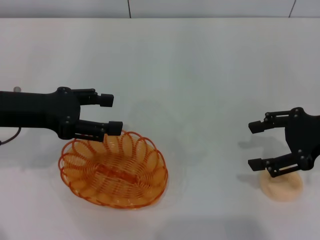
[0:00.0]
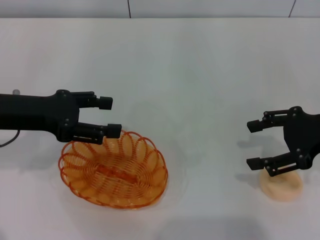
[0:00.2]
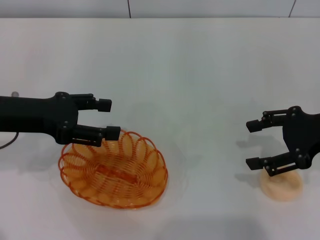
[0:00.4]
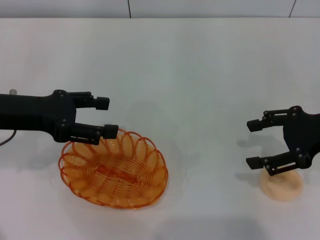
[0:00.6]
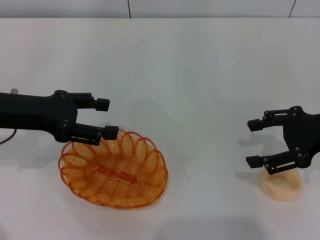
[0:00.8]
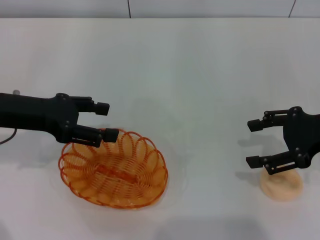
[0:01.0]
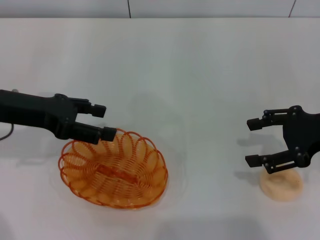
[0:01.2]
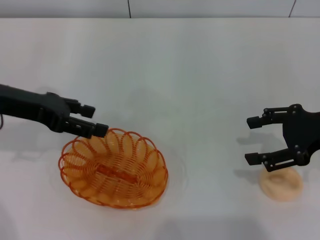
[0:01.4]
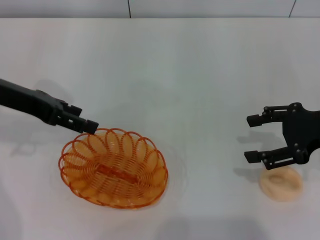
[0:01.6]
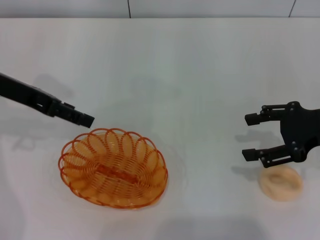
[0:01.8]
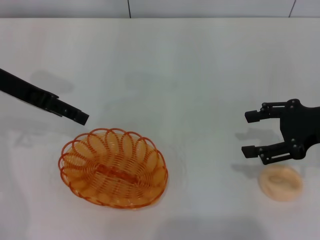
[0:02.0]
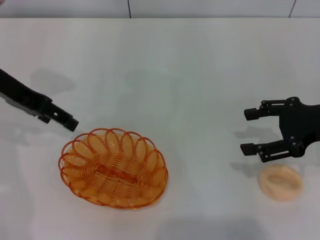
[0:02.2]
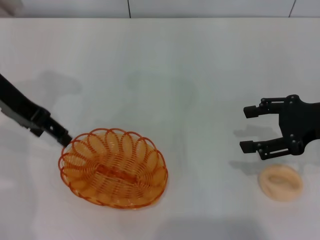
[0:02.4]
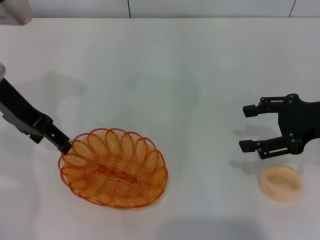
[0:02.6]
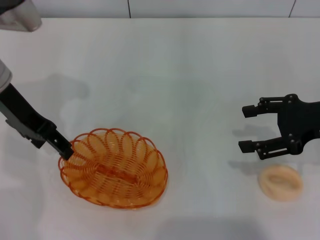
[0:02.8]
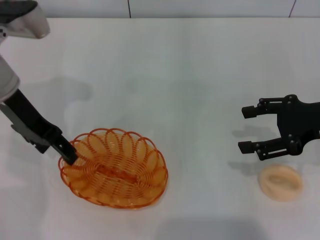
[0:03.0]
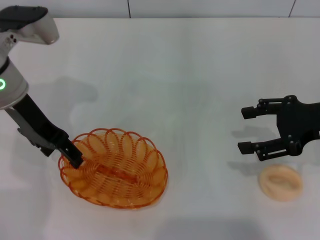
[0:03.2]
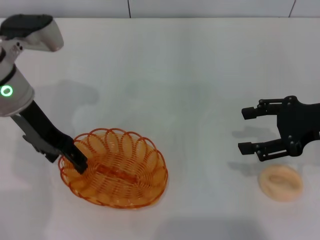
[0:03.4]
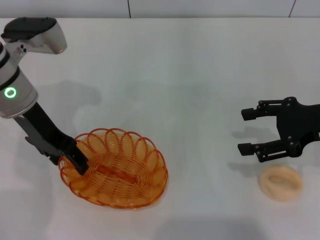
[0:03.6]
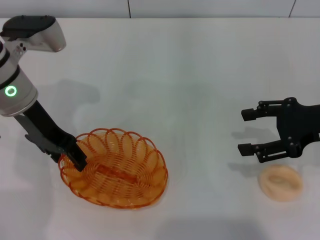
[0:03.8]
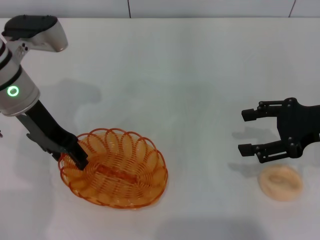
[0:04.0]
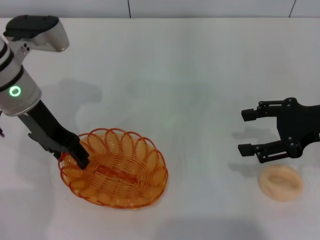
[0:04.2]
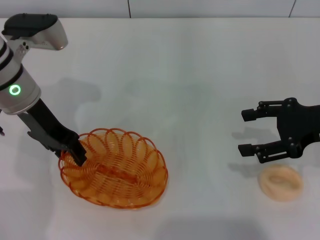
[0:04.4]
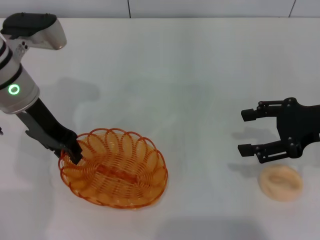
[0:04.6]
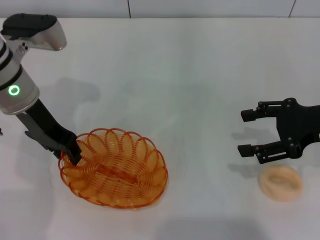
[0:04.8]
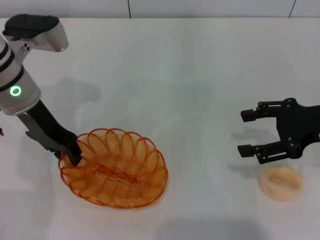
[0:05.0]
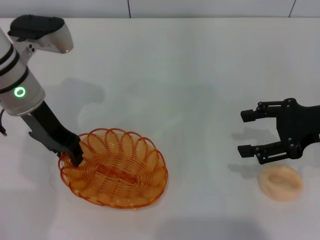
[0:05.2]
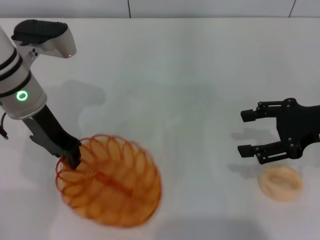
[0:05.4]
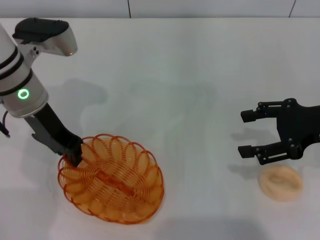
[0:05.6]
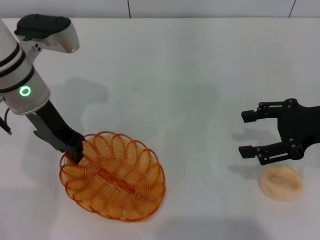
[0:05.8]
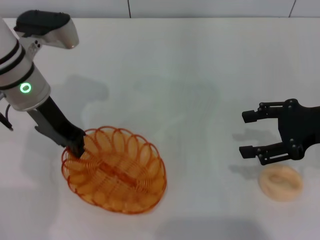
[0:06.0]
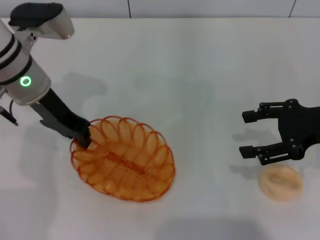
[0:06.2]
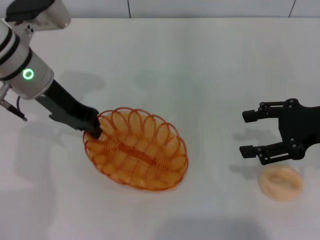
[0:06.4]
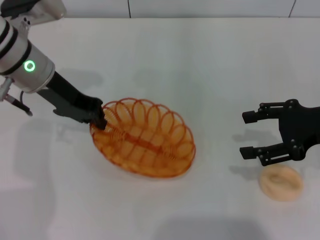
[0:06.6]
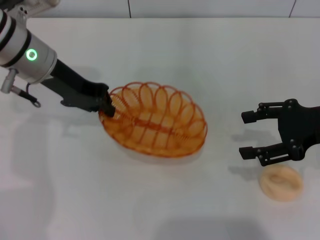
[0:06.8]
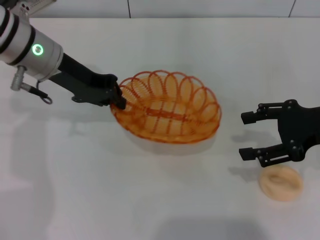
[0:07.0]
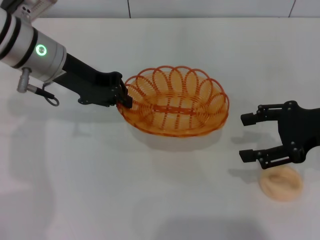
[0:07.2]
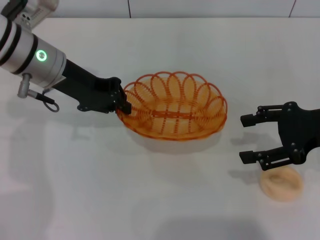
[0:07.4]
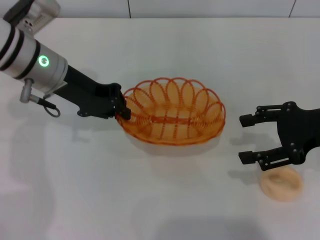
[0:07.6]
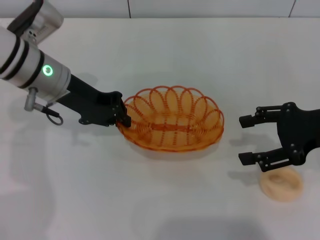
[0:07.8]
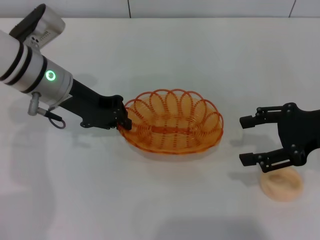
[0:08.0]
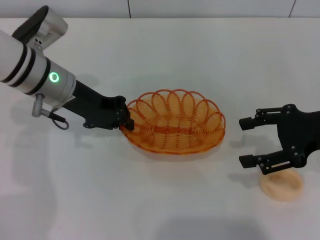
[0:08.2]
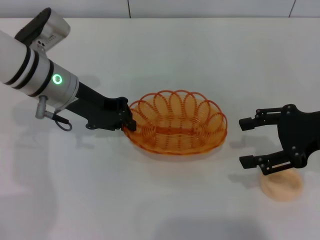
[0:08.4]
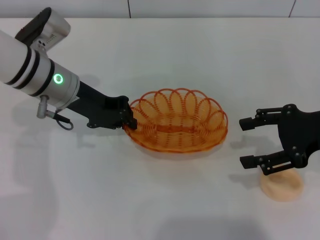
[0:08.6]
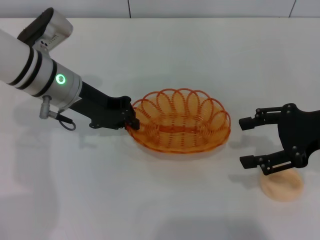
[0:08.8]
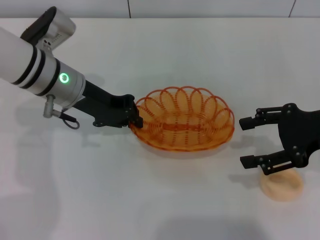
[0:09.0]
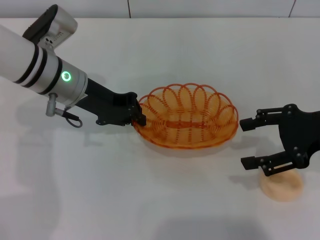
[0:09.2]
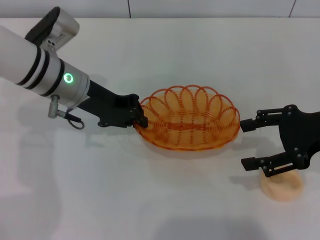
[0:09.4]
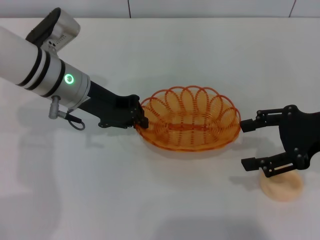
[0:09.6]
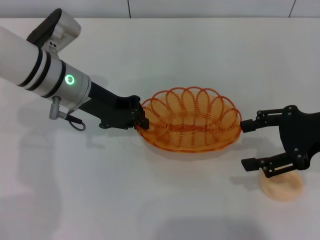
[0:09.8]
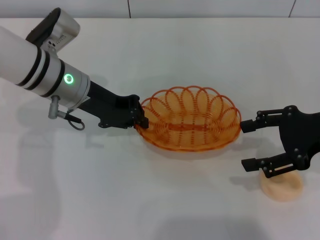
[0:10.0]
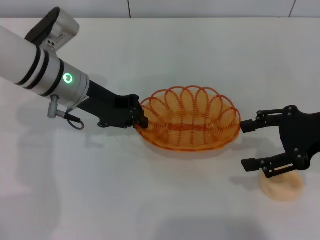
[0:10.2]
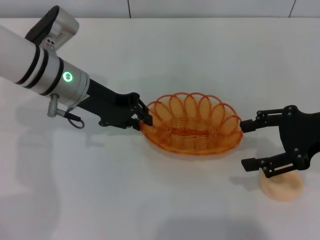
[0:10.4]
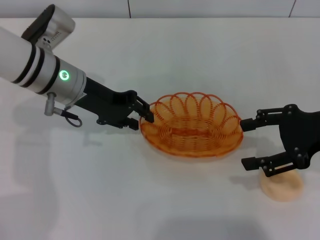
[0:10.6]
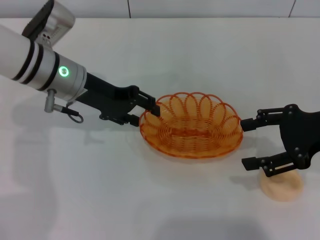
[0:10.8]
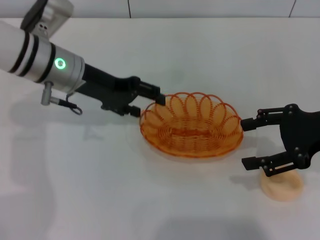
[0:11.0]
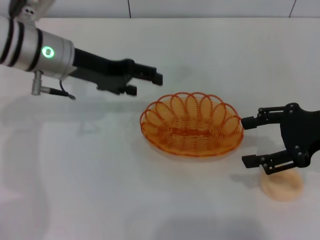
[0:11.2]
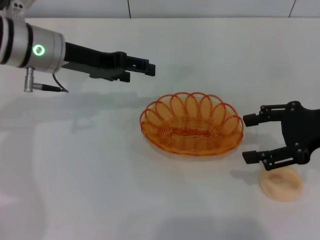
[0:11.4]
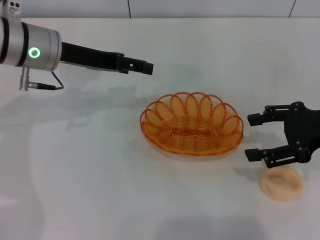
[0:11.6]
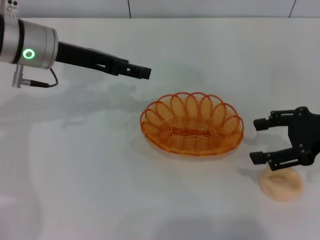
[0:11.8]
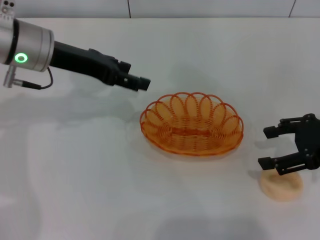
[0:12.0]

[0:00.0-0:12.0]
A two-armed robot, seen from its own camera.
Step, 0:00.0 to 0:06.2: Pick up the basket with the left gripper.
Step, 0:06.6 to 0:11.2: Place the basket in the center of view with the left gripper.
0:01.6 to 0:03.0: The left gripper changes place by approximately 5 cm.
0:03.0 to 0:04.4: There are only small adjustments of the grippers.
0:04.4 to 0:06.0: The left gripper closes.
0:07.6 to 0:09.0: The grippers move only a little.
0:09.0 to 0:10.4: Both grippers stay put.
0:10.4 to 0:12.0: The left gripper heads upward, covering approximately 5 cm, and opens its fingers.

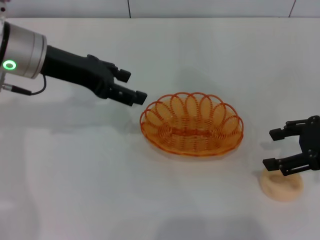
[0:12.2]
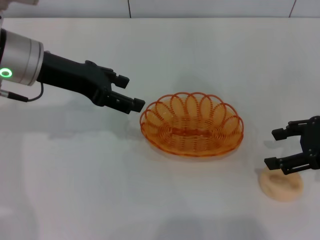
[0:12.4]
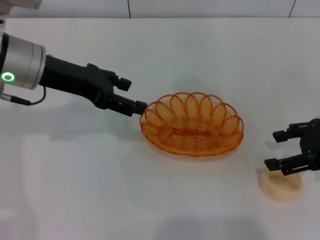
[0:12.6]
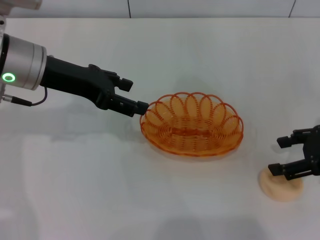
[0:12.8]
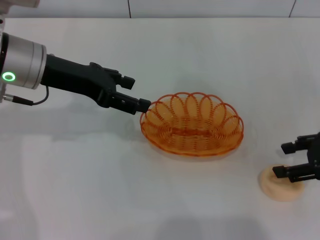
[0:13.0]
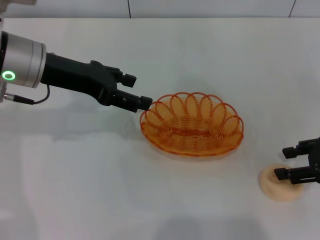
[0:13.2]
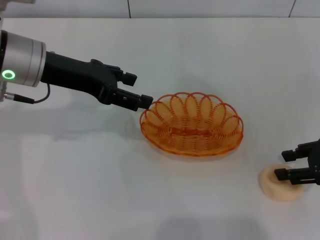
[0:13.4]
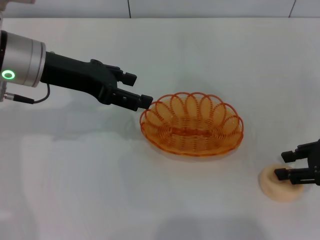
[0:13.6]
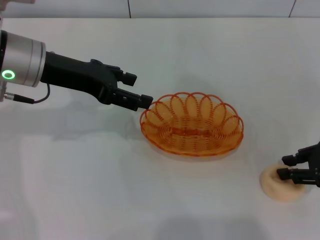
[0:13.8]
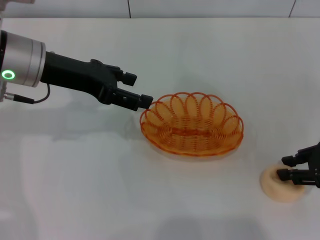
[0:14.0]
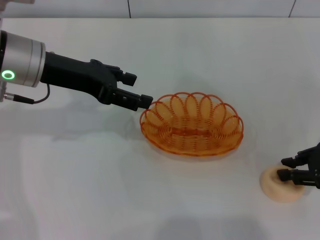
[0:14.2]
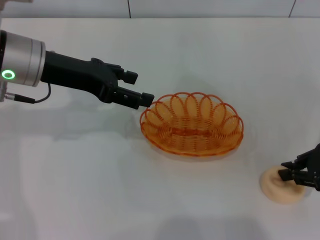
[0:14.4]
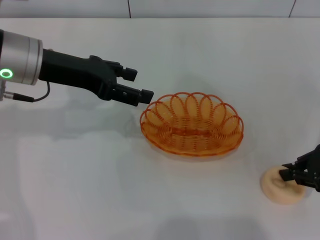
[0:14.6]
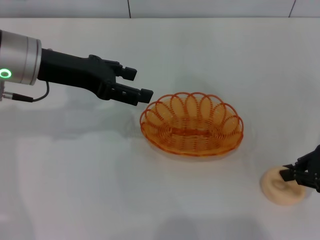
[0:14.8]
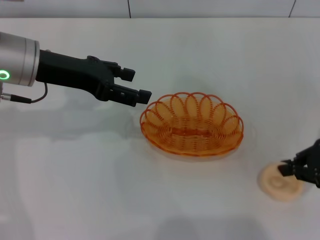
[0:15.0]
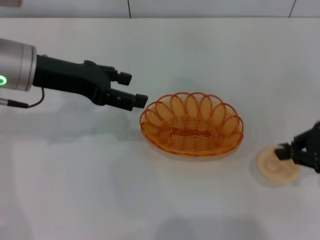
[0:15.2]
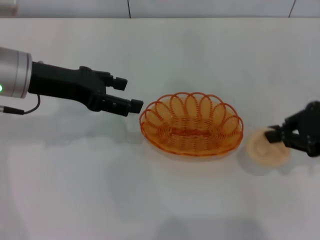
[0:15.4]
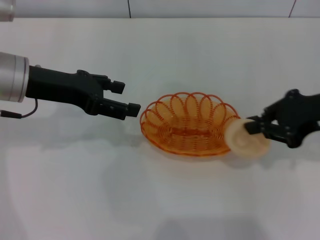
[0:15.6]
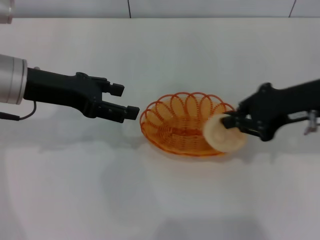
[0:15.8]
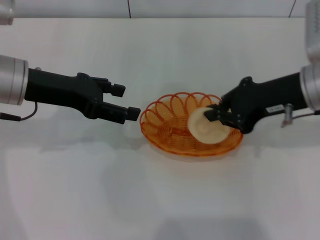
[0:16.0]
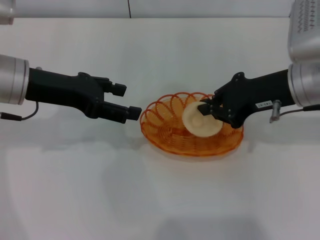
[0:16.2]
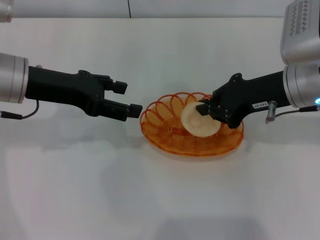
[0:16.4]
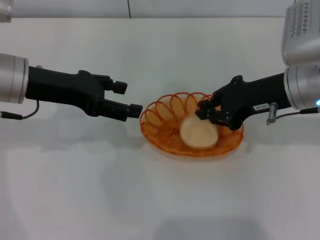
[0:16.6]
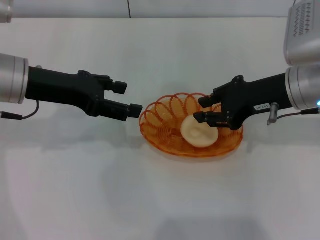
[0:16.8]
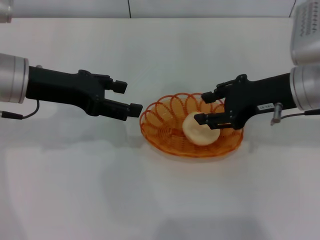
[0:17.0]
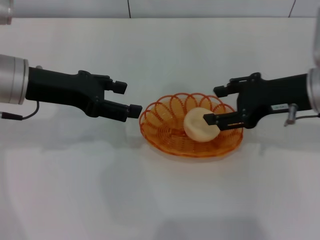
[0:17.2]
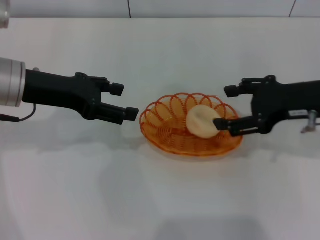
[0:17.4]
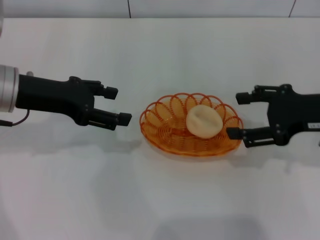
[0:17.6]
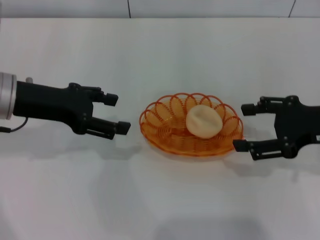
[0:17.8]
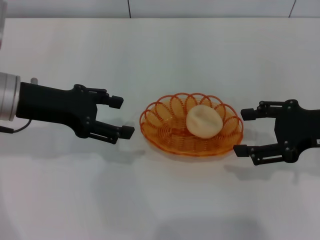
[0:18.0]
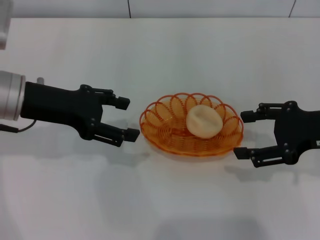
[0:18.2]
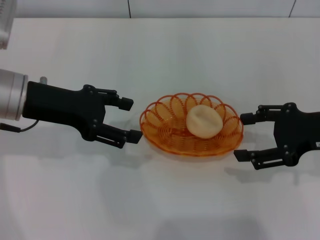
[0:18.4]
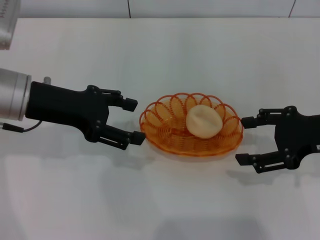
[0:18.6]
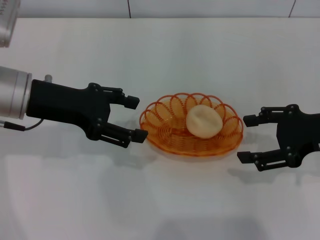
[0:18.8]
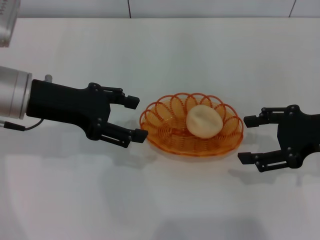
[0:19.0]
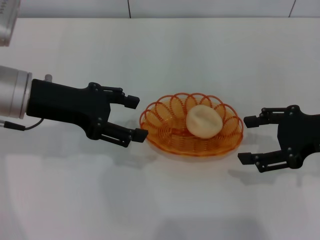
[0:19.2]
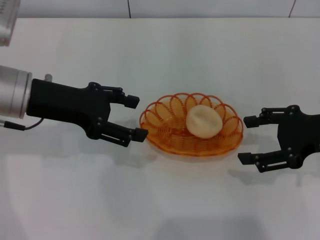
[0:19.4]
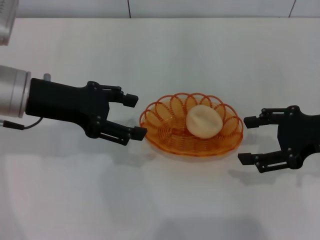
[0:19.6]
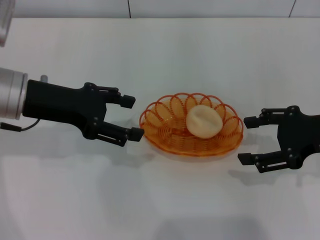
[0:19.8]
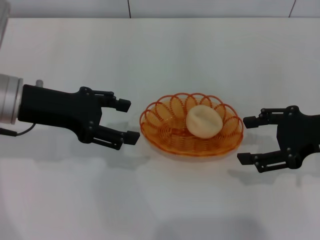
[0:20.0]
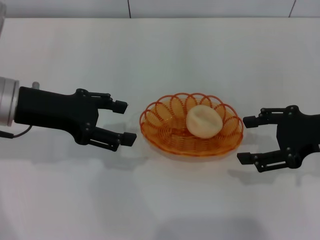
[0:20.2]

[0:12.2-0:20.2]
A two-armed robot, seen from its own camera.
Step, 0:12.2 to 0:15.2: Pick up the egg yolk pastry with the right gripper.
Step, 0:15.4 to 0:17.4: Place the egg yolk pastry into the basket with the right gripper.
0:12.2 to 0:13.8: The right gripper closes up.
0:13.8 to 0:15.4: The right gripper shifts about 5 cm upward, and closes.
0:15.4 to 0:17.0: The right gripper heads to the left, covering roughly 10 cm, and opens up.
0:17.0 to 0:18.6: The right gripper moves to the right and backward, about 10 cm, and opens.
0:18.6 to 0:20.2: The grippers make only small movements.

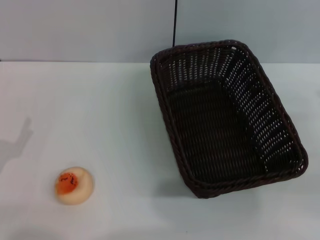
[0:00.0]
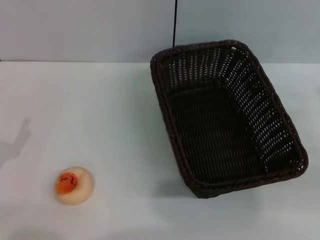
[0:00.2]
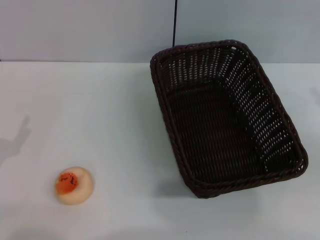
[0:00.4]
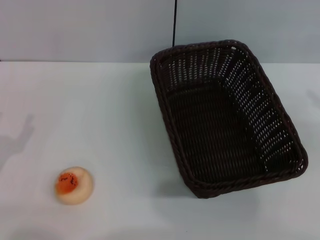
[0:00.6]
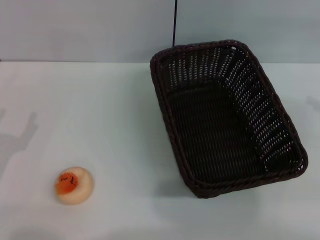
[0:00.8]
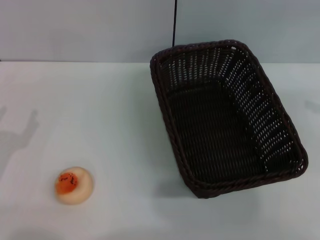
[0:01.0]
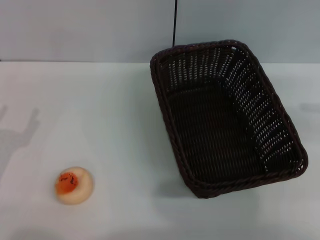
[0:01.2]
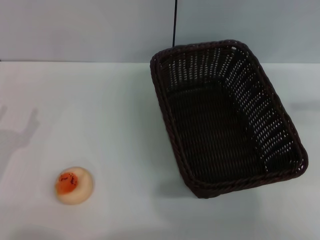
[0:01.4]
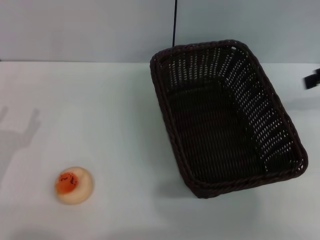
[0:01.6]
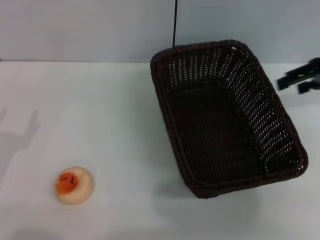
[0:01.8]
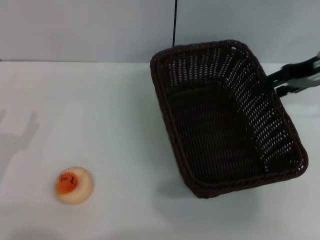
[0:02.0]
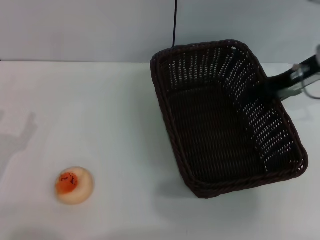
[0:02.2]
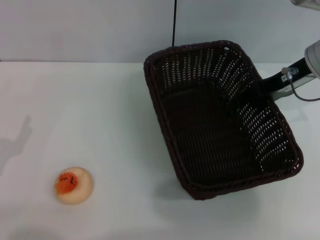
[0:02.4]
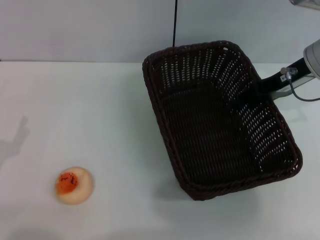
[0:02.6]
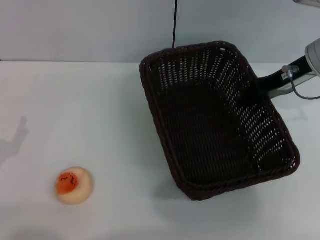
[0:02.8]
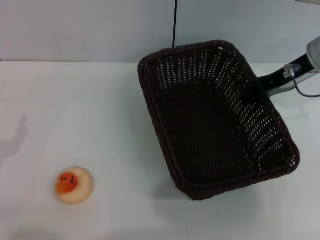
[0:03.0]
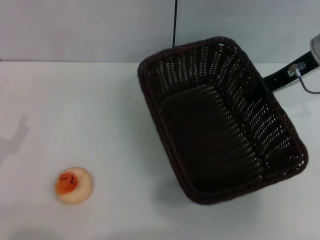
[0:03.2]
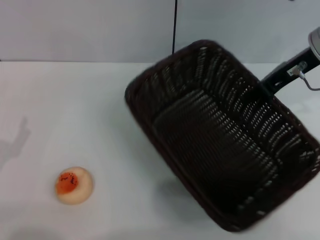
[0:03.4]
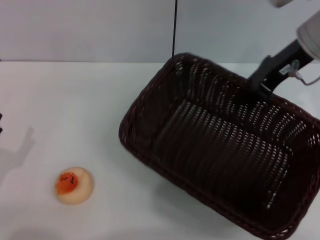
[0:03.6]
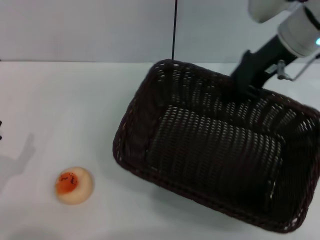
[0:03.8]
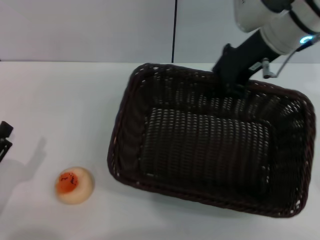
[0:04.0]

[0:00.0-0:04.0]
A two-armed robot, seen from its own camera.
0:00.0 to 0:01.4: The right gripper travels upward and forward by some 20 cm.
0:01.4 to 0:02.6: The right gripper travels to the left and downward by roughly 15 cm.
0:02.6 to 0:04.0: The right gripper travels to the left and upward by about 10 cm, and closes.
